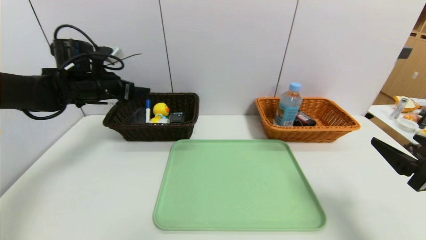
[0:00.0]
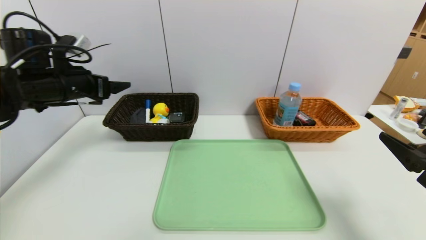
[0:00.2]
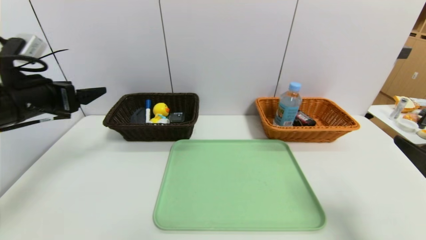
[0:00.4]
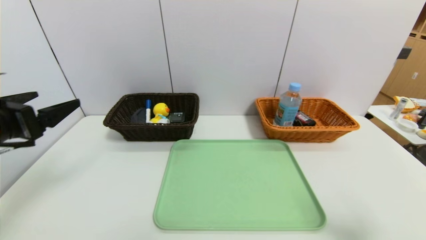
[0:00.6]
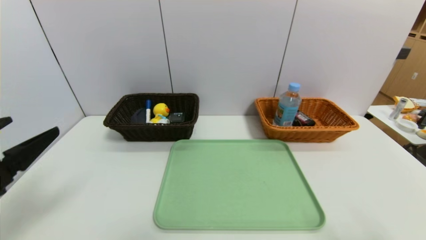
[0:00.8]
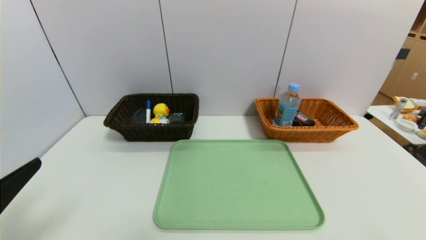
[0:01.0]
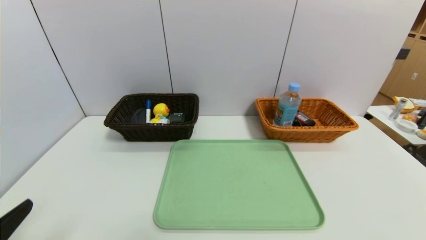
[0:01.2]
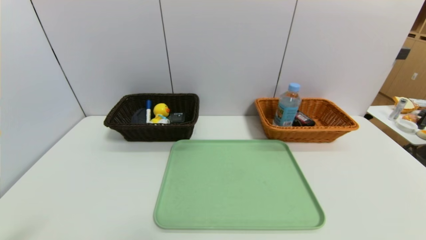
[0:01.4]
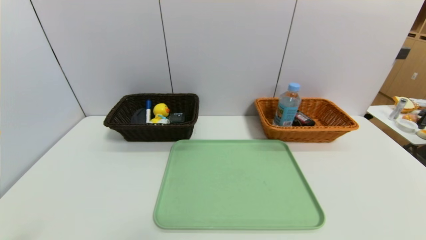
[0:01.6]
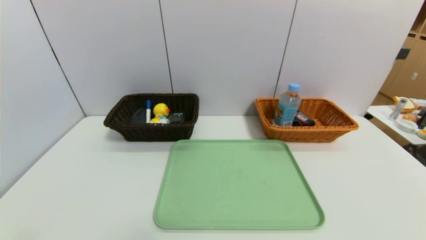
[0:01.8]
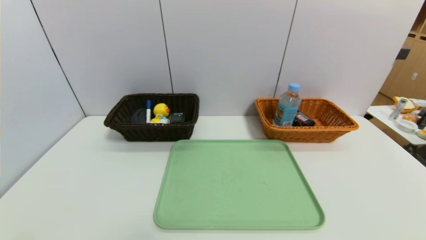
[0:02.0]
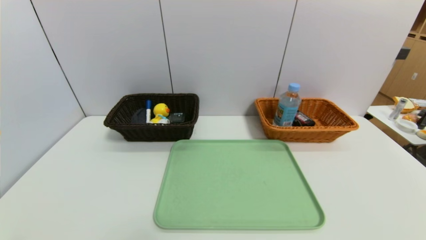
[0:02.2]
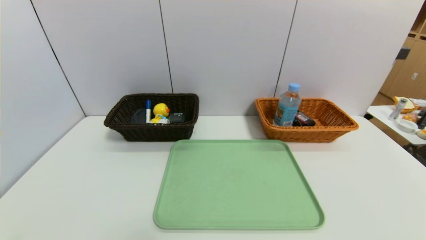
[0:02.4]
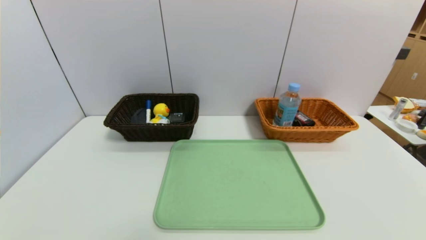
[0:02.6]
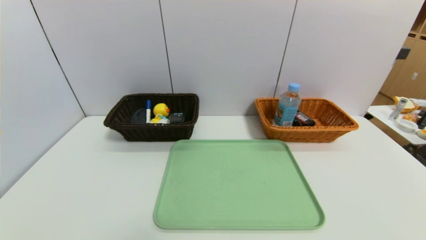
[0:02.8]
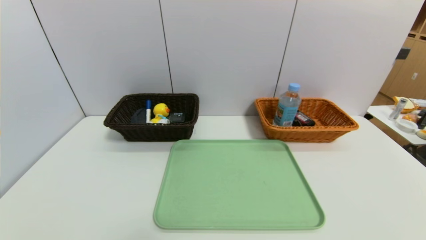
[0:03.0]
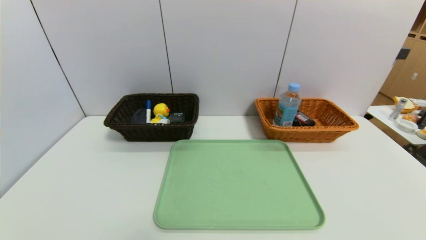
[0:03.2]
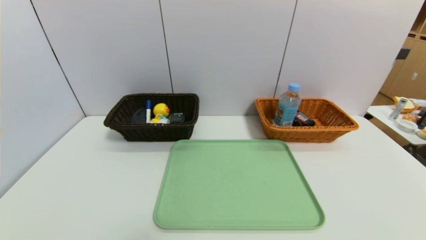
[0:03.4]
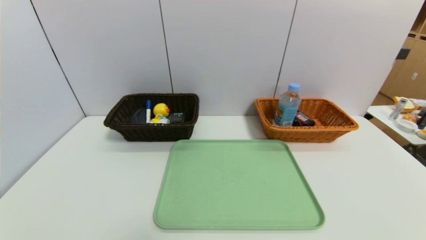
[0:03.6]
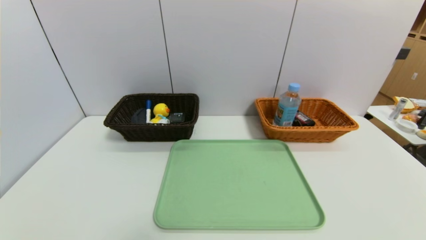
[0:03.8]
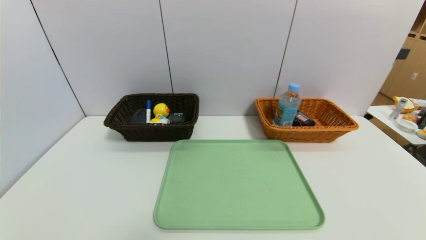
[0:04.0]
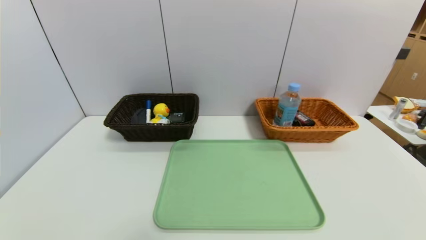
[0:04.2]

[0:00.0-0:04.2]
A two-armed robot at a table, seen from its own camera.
Task of the whole recording: place the food in the right basket with the right gripper, and place the non food items in the left basket with the left gripper.
0:00.0 to 0:01.4: The right gripper shifts roughly 15 cm backward, while the left gripper moves backward, some 40 cm.

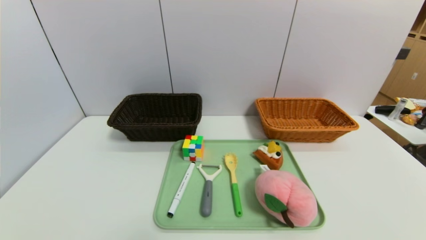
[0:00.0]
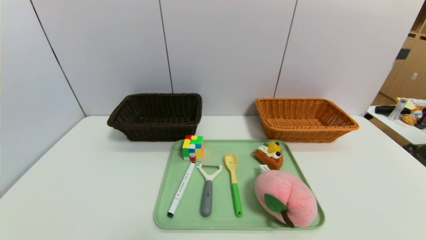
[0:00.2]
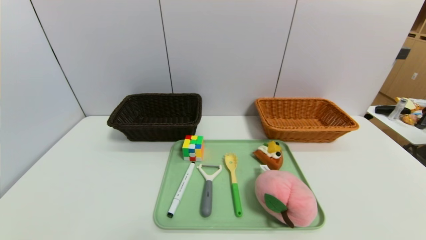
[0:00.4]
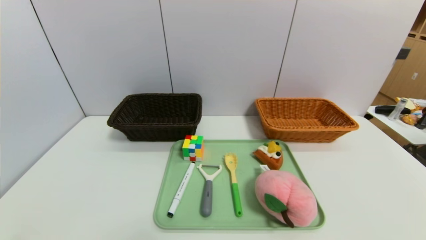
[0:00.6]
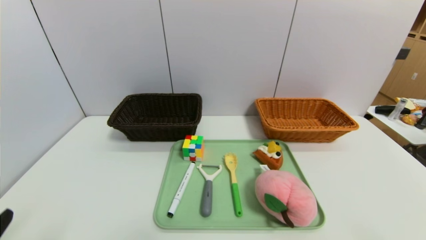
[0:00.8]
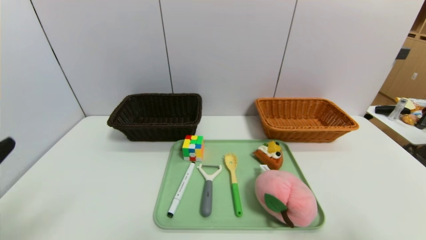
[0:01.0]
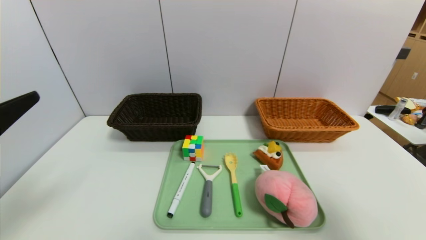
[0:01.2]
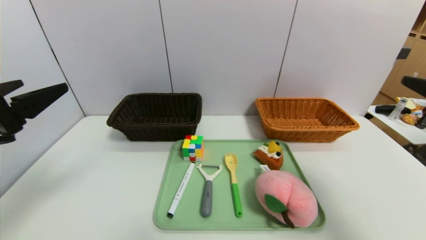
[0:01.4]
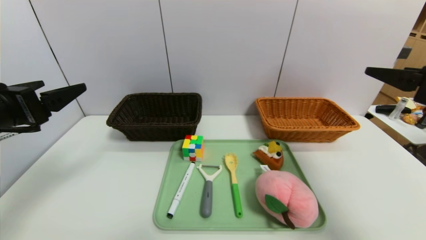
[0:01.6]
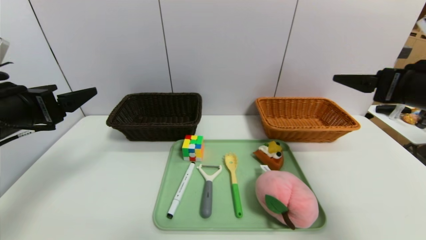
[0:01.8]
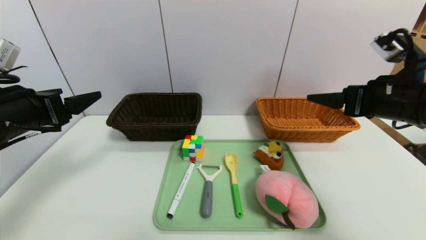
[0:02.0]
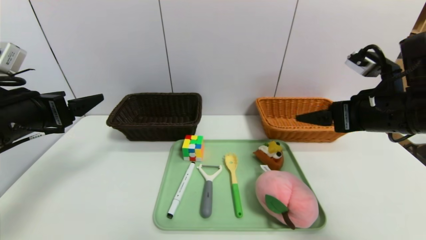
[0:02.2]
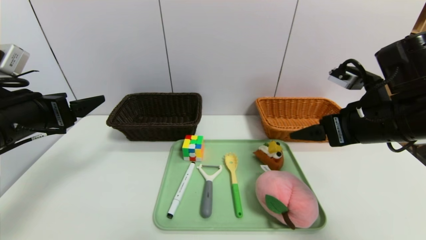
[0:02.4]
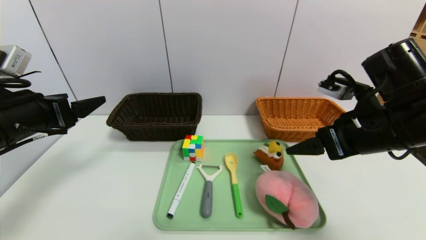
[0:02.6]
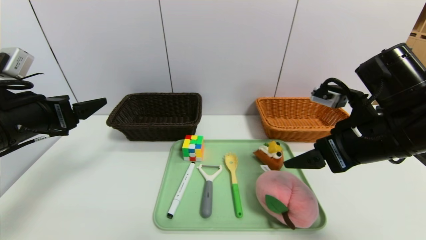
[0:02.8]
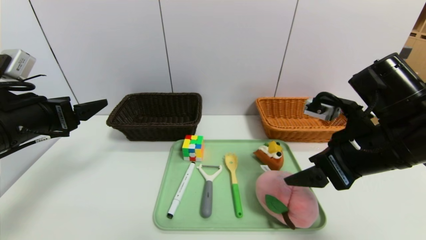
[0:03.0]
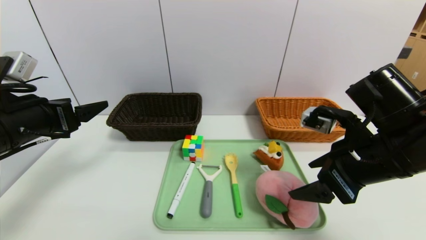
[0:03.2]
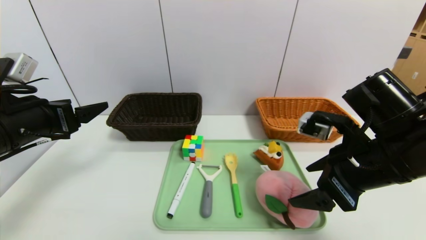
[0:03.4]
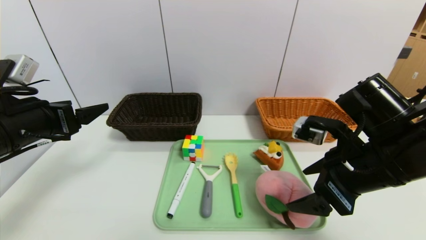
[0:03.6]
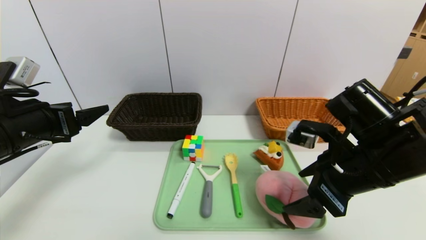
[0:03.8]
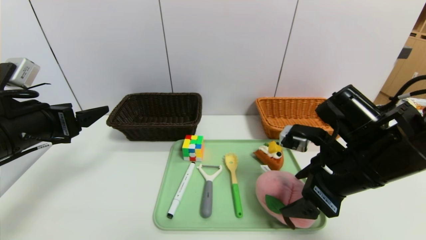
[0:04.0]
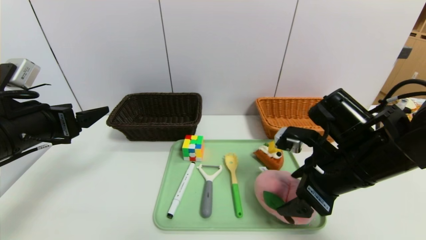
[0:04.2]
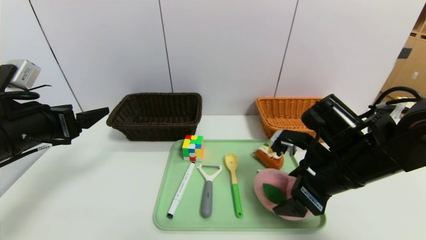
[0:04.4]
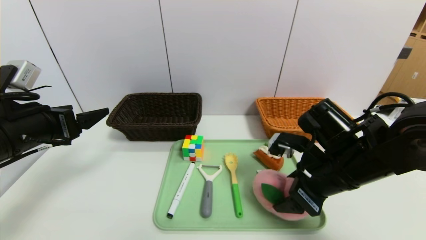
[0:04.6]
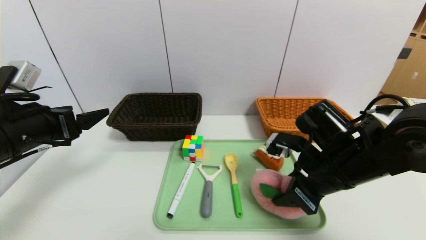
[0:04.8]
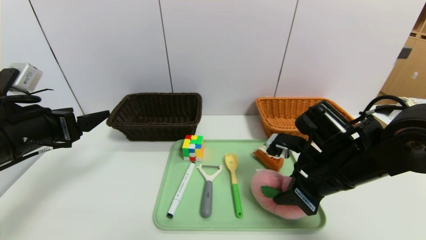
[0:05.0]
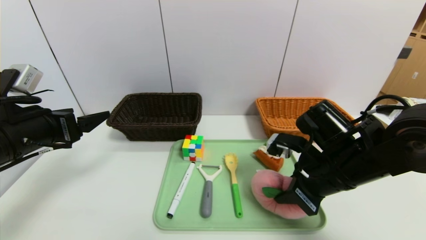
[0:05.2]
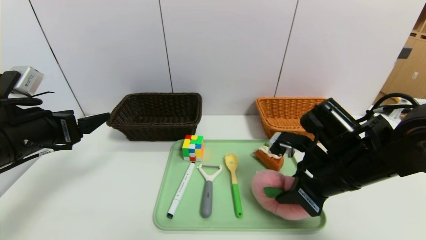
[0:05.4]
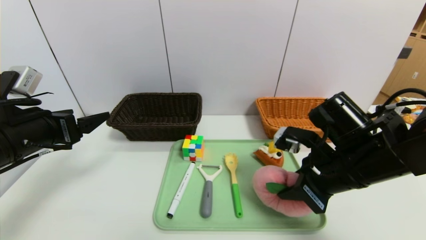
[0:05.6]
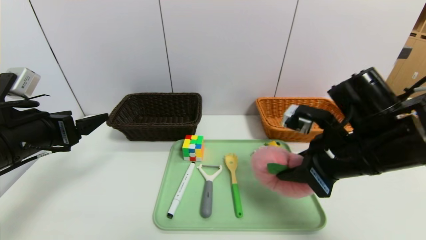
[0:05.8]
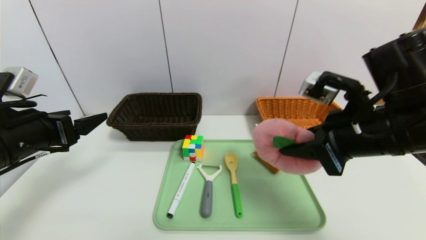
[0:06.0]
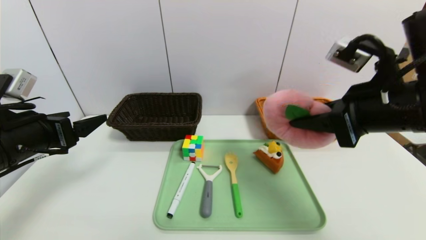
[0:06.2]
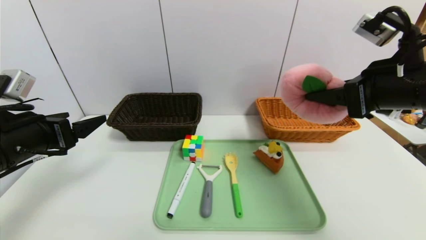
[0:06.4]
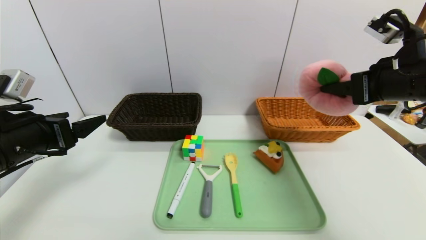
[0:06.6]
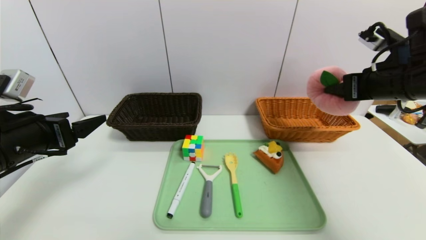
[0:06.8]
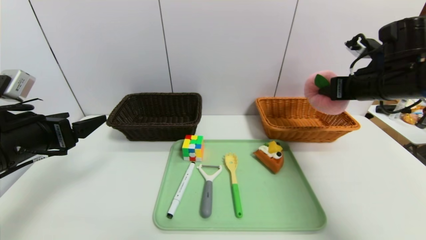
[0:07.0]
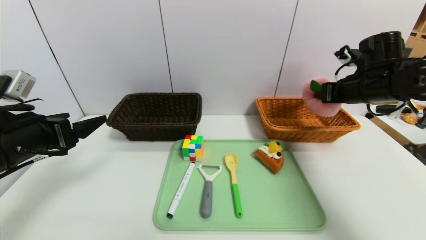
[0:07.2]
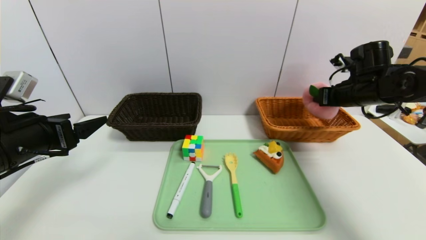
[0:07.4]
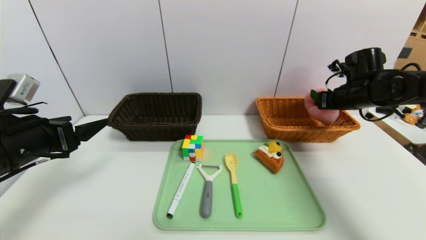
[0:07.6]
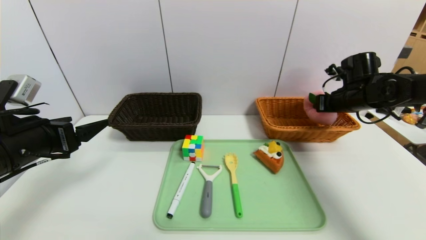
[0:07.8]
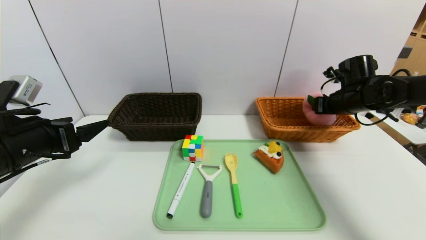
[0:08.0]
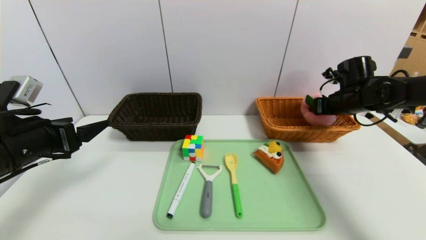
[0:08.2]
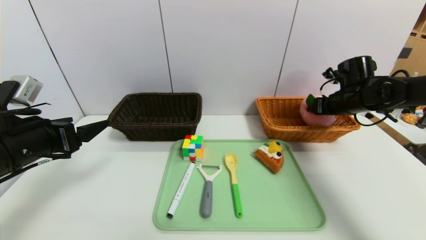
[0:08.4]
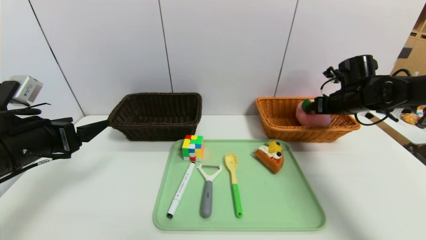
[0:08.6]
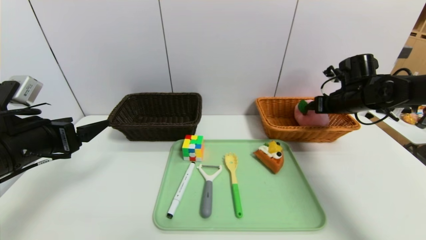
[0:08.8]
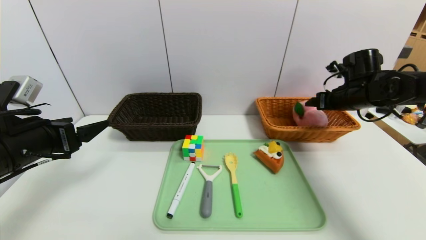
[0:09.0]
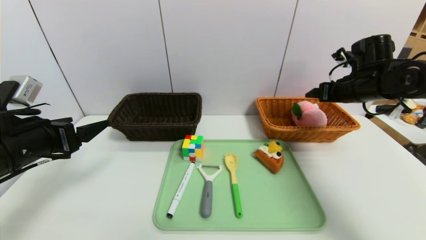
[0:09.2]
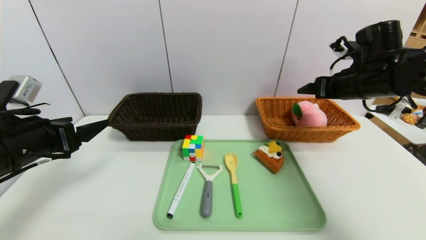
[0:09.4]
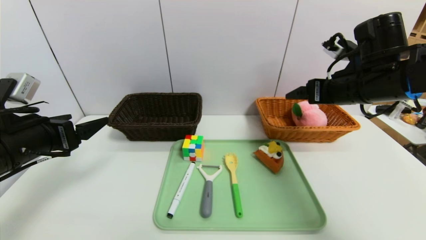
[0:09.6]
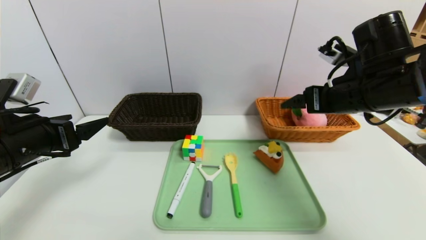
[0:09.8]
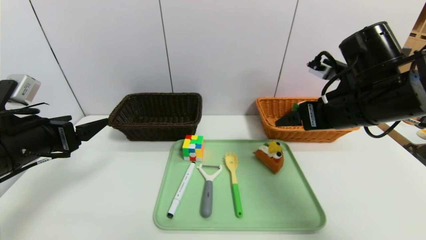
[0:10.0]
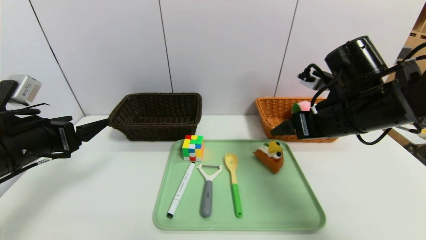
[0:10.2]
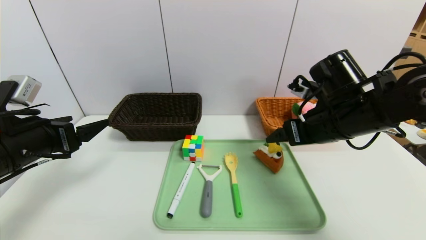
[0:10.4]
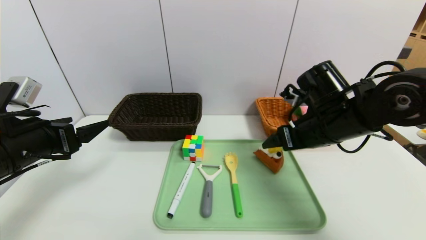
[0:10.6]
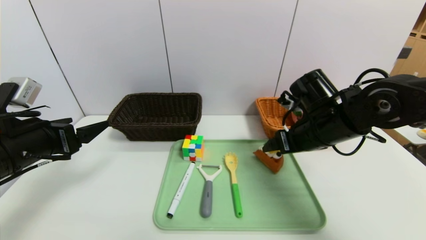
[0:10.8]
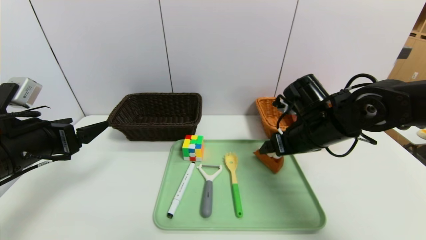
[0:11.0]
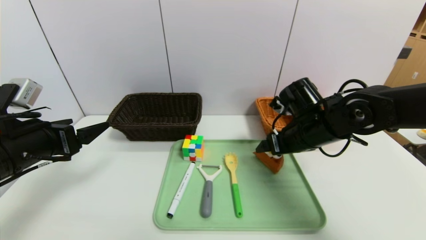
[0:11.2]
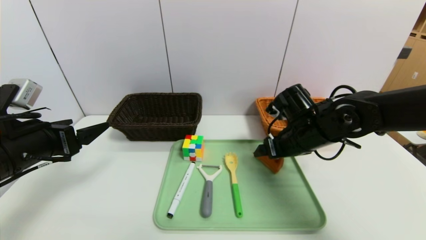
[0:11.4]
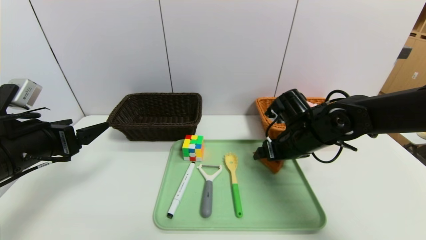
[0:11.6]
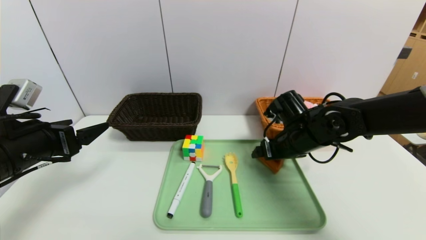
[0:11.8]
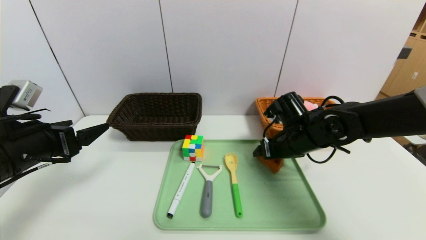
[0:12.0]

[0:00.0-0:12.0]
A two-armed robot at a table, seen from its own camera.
Task of the whole recording: place the food in the right basket with the right gripper, and place the non food items in the left basket with the left gripper.
Step, 0:00.0 to 0:08.6: Grasp the peach and put it in the right basket.
0:00.0 to 0:01.6: Both grippers move upward and forward, roughly 30 cm.
0:01.6 to 0:03.0: The right gripper is displaced to the left and downward by roughly 10 cm.
0:03.0 to 0:04.4: The right gripper travels downward by roughly 5 cm.
0:04.4 to 0:06.0: The right gripper is displaced upward by some 10 cm, and closes its fingers.
0:06.0 to 0:07.6: The right gripper travels forward and to the right by some 25 cm.
0:07.6 to 0:09.0: The right gripper opens its fingers.
0:09.0 to 0:10.4: The right gripper heads backward and to the left, covering about 20 cm.
0:10.4 to 0:12.0: The right gripper goes some 10 cm downward and forward.
